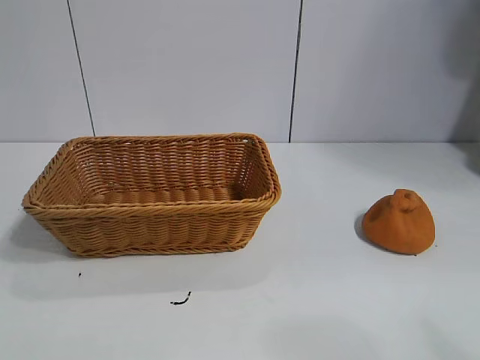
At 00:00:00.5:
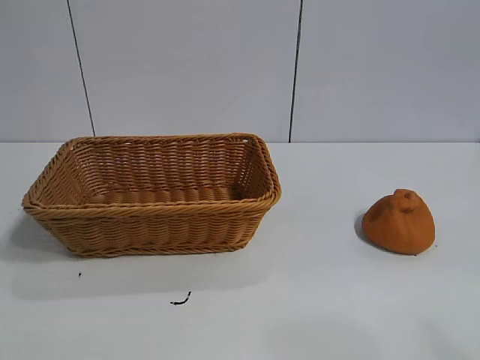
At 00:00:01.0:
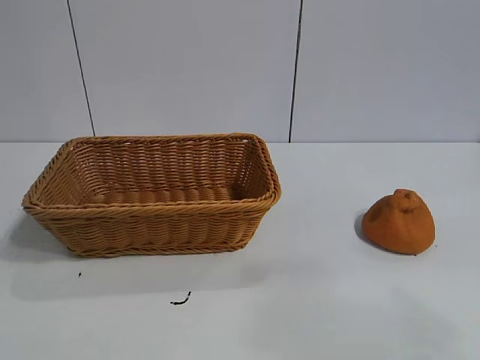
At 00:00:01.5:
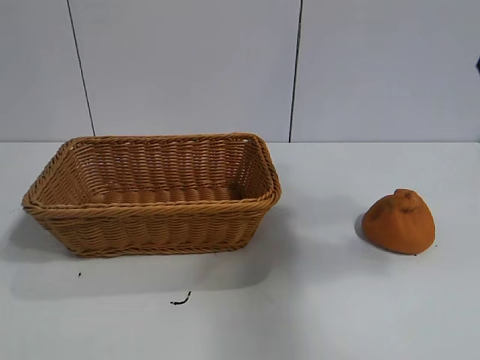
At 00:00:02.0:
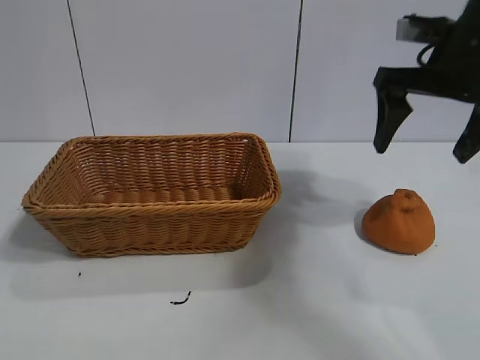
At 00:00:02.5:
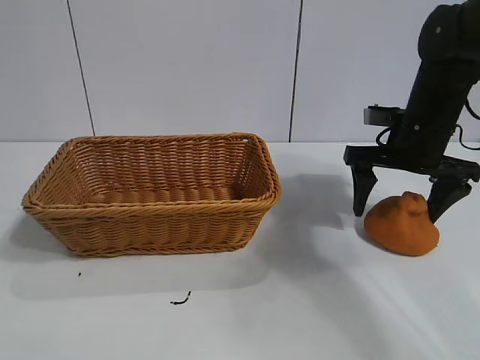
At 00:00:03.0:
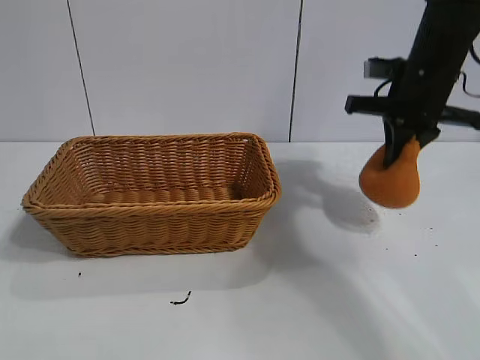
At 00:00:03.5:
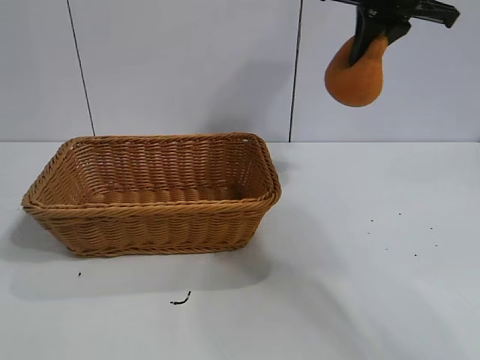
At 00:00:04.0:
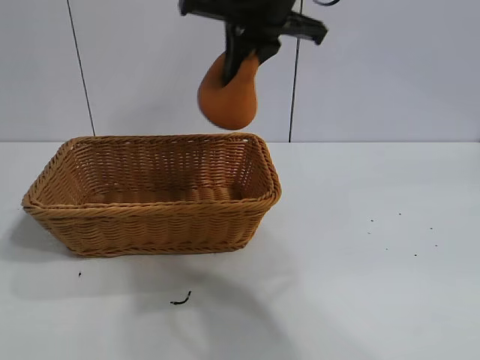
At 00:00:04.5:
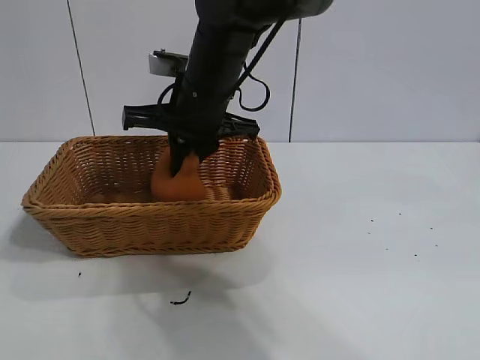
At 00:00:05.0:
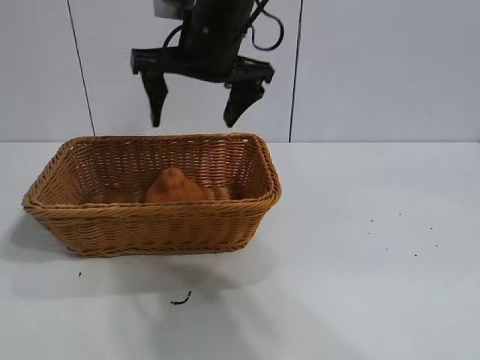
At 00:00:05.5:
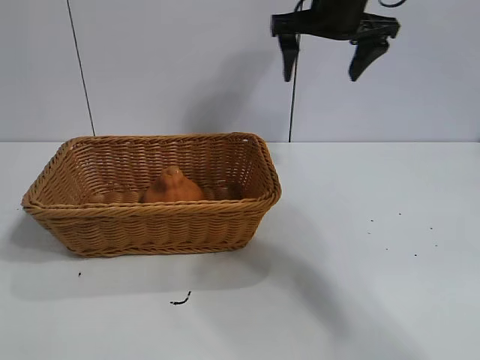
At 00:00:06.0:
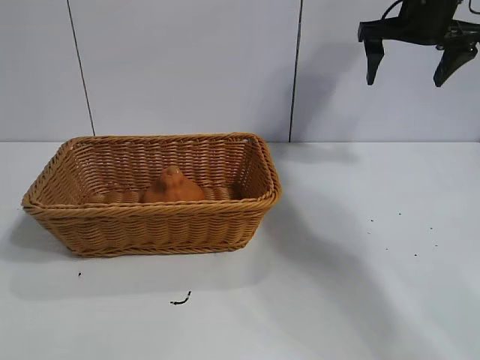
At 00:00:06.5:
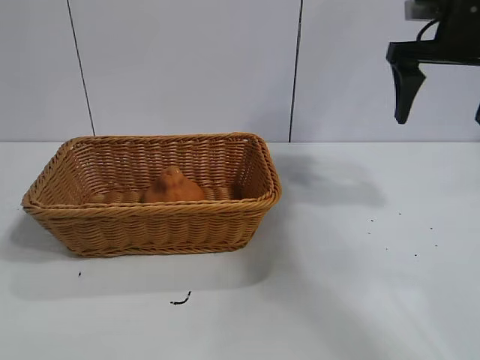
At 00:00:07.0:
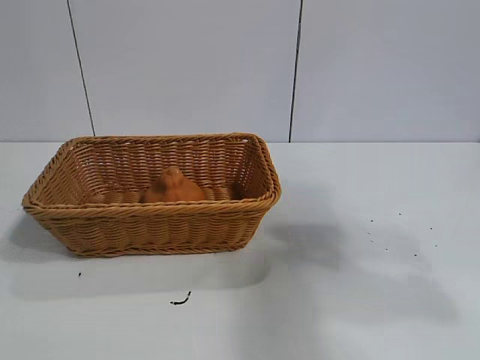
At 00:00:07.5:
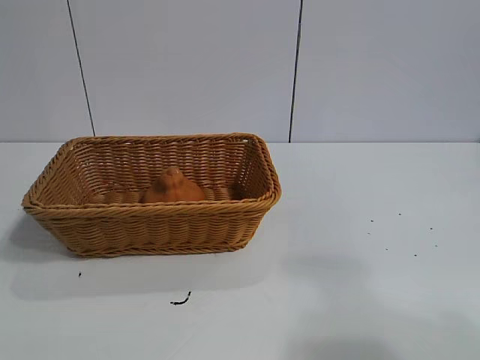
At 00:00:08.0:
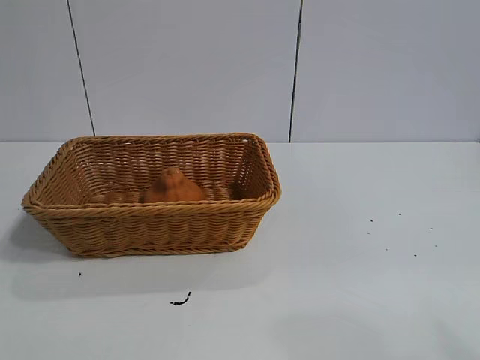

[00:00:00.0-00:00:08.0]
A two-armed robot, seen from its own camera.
Task of the whole recording: pick up the orange and put it into the basket.
Step, 00:00:01.0 to 00:00:02.5: Grasp the orange with right gripper.
Step, 00:00:03.0 to 00:00:04.5: Place the orange in the basket with right gripper.
